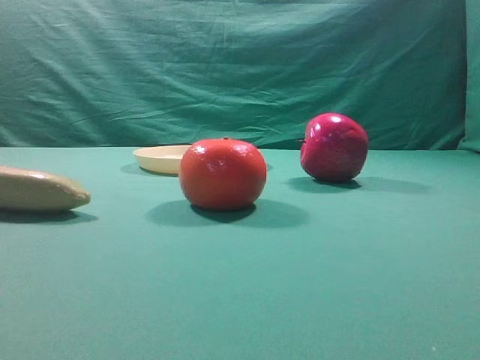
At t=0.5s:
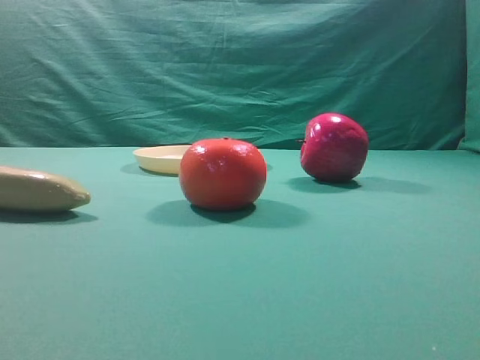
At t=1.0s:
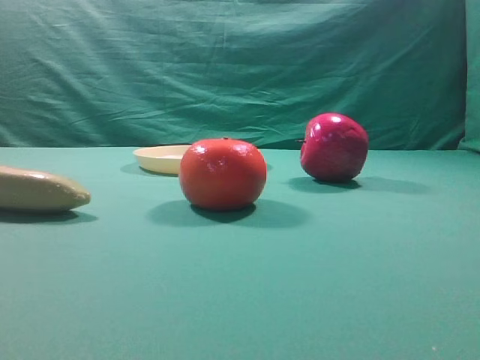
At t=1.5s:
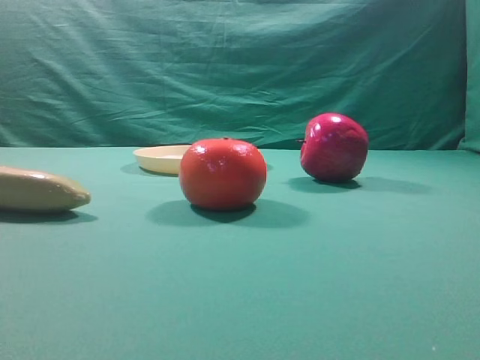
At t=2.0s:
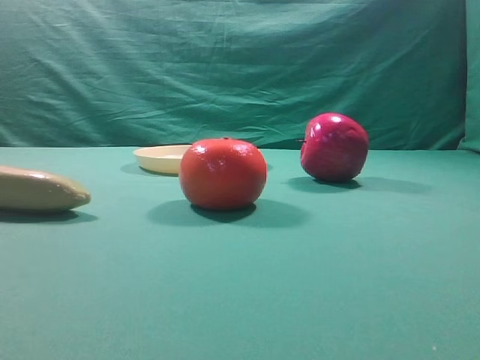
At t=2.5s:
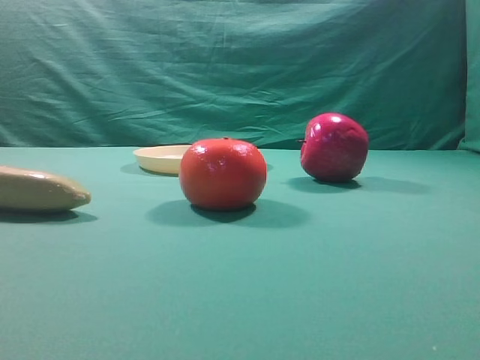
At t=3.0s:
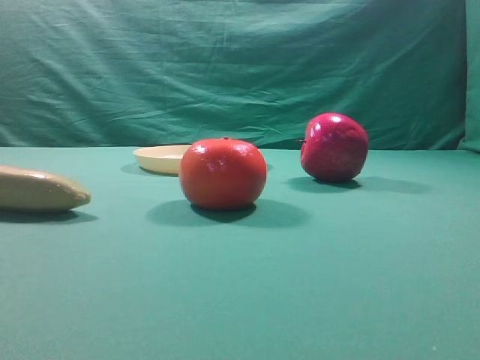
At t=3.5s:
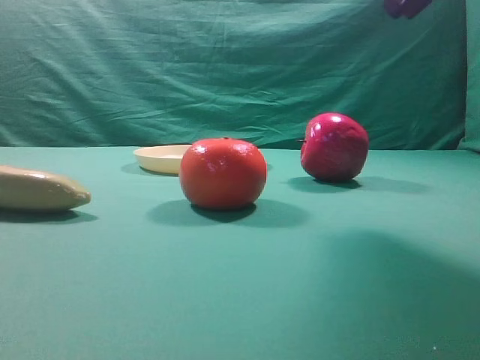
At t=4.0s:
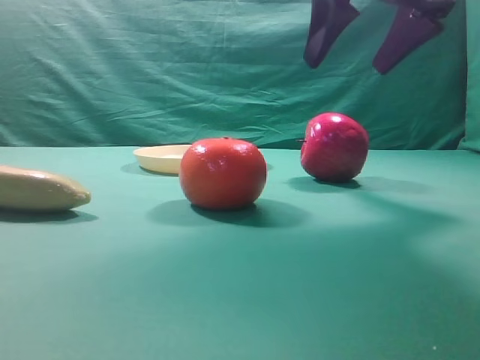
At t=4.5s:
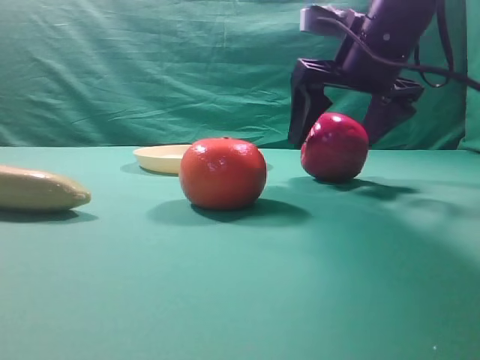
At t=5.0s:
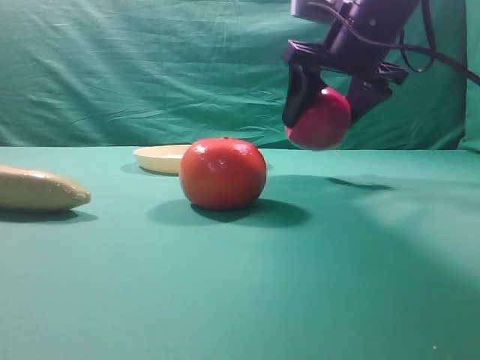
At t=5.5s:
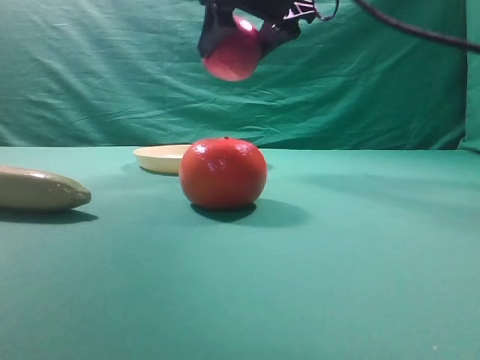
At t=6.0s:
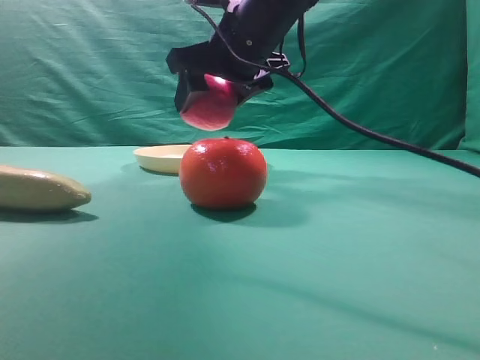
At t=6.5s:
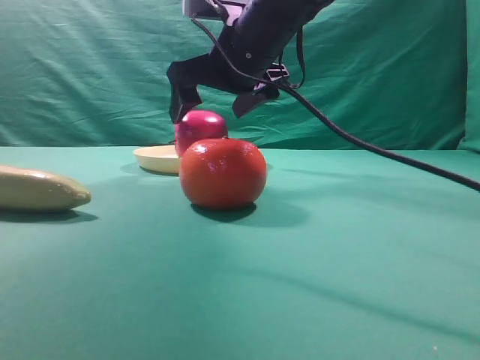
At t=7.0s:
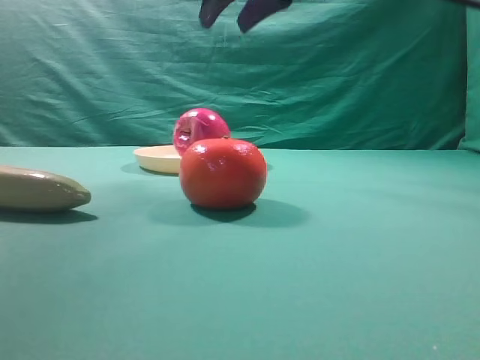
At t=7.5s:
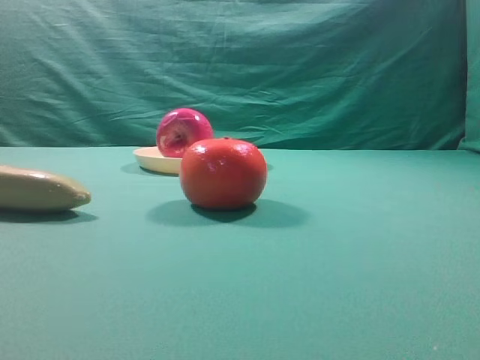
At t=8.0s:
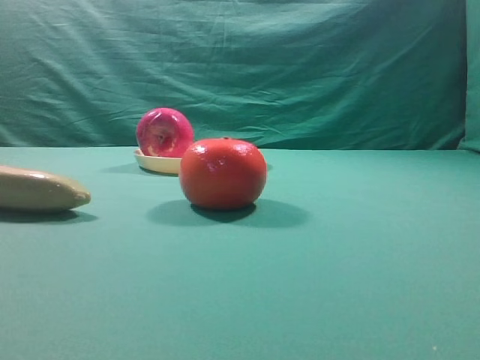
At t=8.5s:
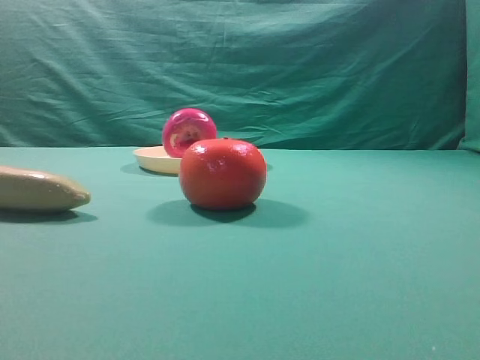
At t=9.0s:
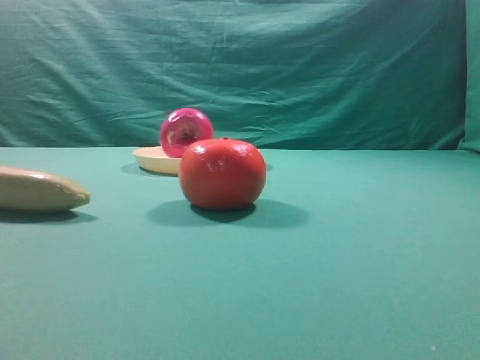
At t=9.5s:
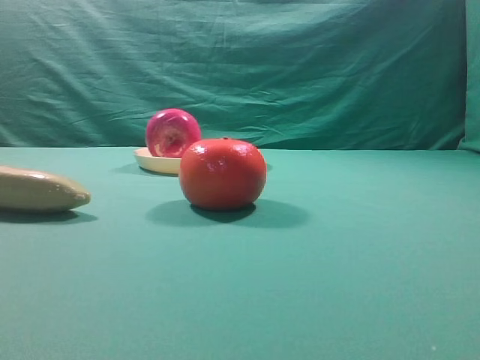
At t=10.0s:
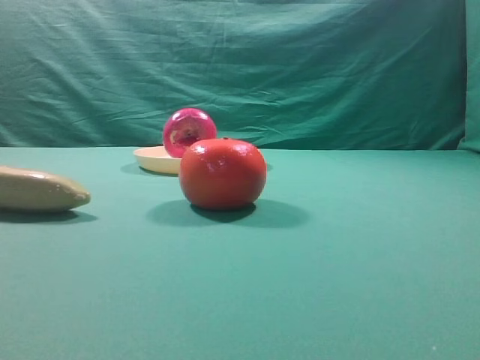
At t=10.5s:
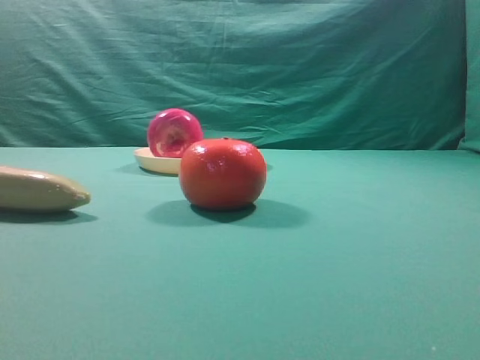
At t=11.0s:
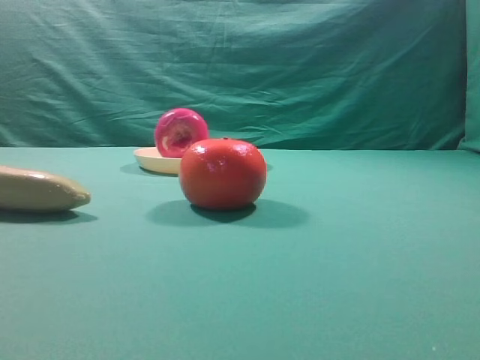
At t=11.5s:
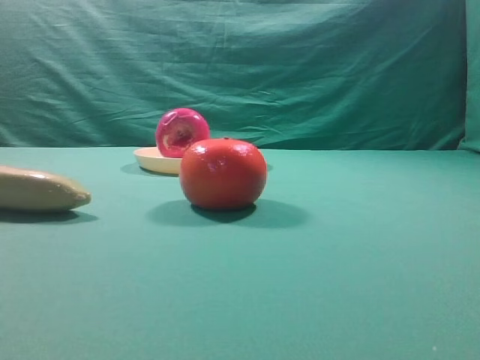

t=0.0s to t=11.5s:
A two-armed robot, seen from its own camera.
Task of the whole recording: grasp the apple and place it into the yellow plate.
Step, t=0.0s to t=4.5s: Grasp the fruit that can keep the doctor away.
Step, t=5.5s to t=6.5s: Place the picked object into the yellow plate.
